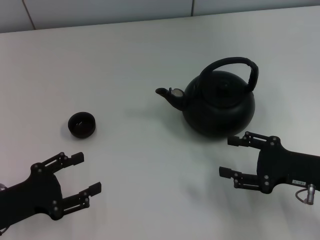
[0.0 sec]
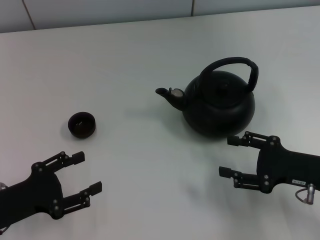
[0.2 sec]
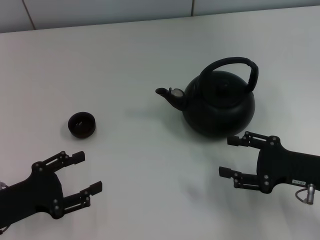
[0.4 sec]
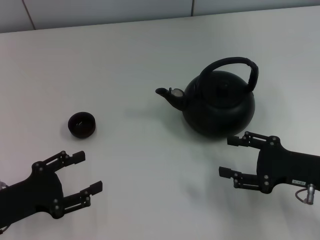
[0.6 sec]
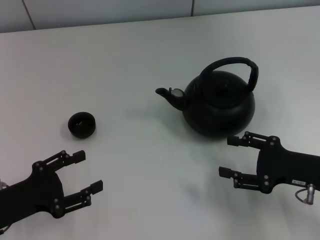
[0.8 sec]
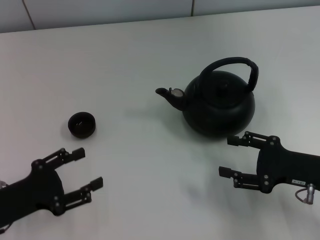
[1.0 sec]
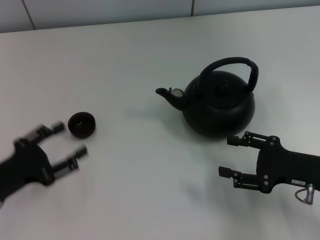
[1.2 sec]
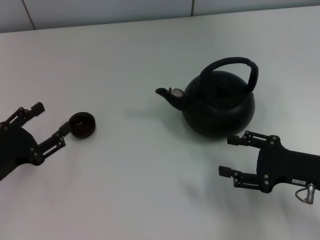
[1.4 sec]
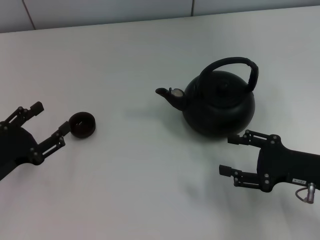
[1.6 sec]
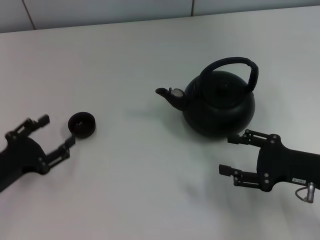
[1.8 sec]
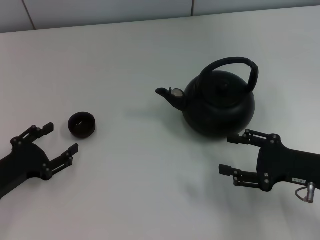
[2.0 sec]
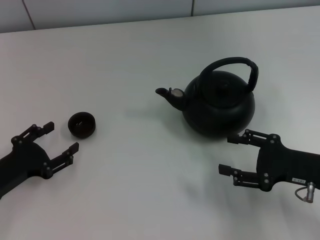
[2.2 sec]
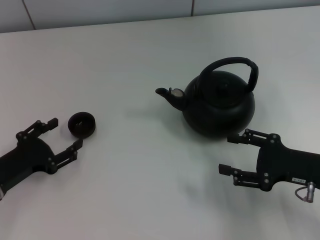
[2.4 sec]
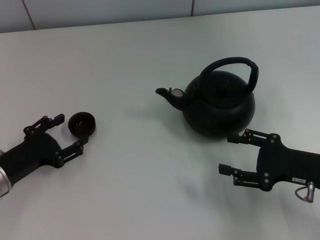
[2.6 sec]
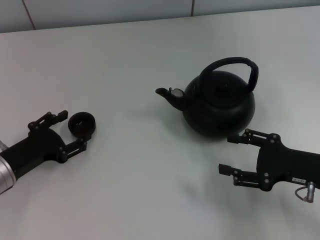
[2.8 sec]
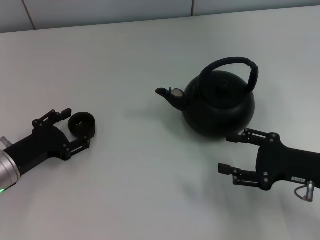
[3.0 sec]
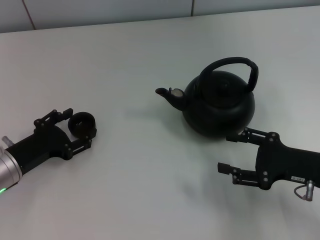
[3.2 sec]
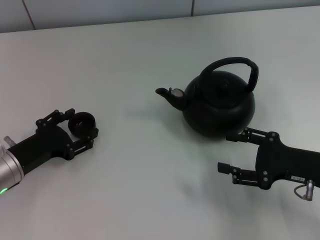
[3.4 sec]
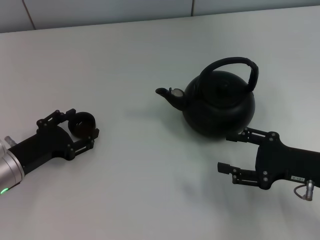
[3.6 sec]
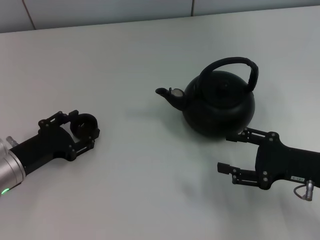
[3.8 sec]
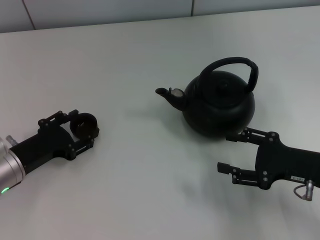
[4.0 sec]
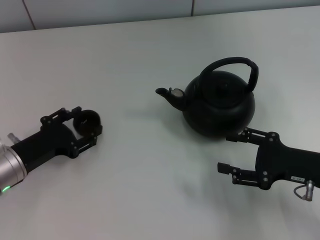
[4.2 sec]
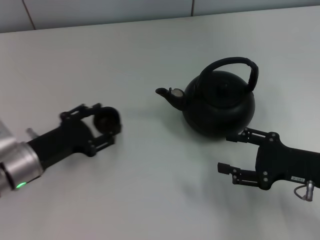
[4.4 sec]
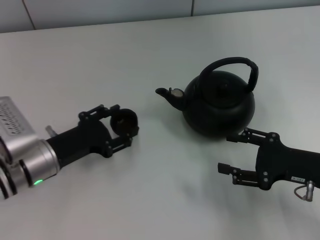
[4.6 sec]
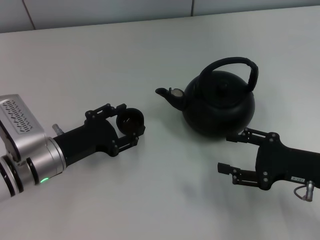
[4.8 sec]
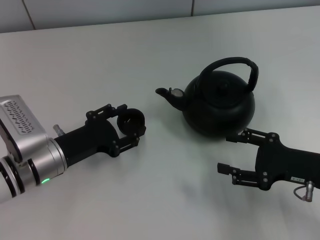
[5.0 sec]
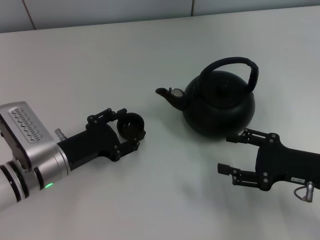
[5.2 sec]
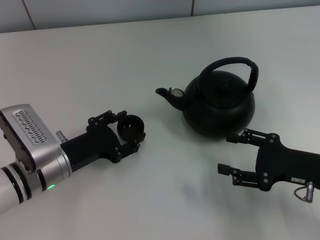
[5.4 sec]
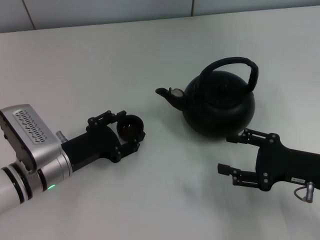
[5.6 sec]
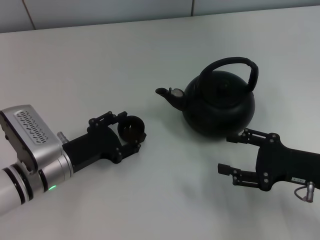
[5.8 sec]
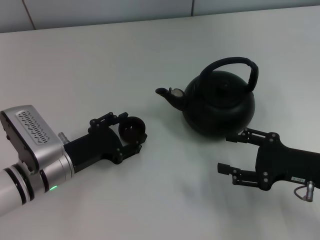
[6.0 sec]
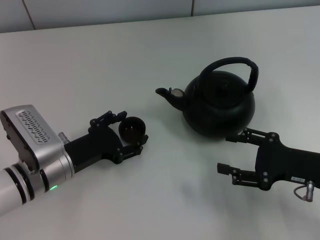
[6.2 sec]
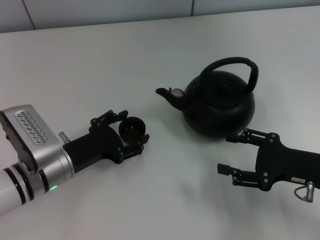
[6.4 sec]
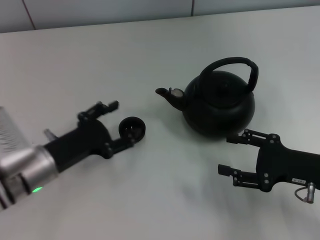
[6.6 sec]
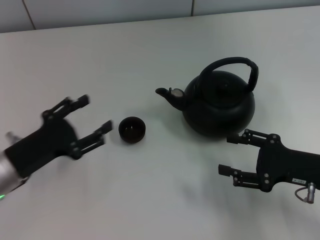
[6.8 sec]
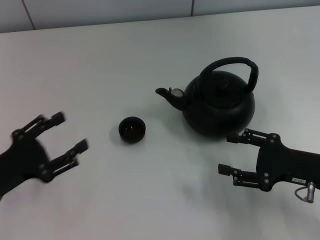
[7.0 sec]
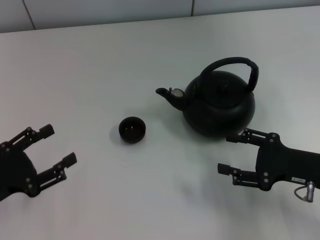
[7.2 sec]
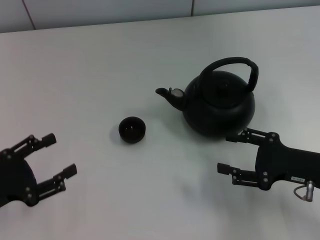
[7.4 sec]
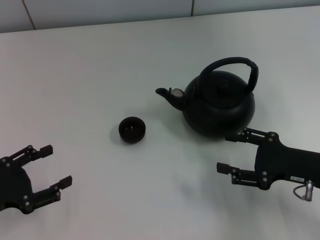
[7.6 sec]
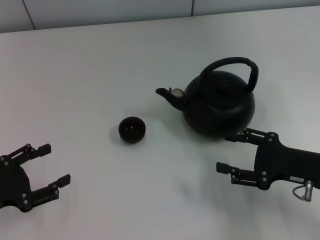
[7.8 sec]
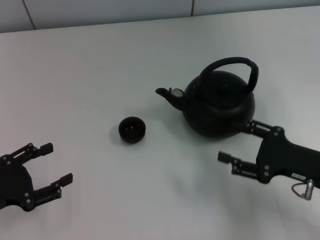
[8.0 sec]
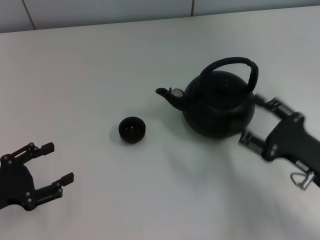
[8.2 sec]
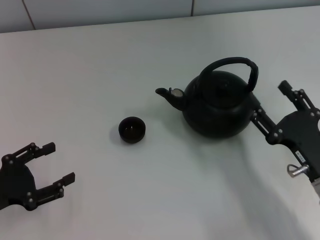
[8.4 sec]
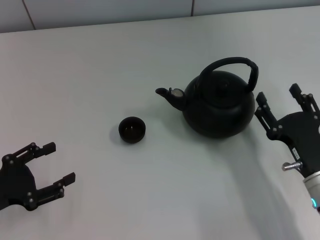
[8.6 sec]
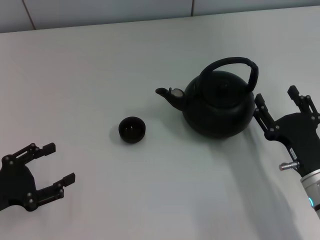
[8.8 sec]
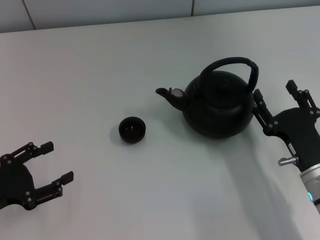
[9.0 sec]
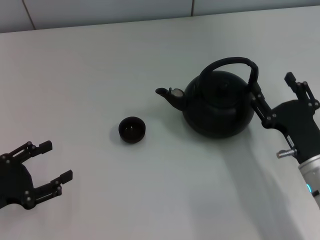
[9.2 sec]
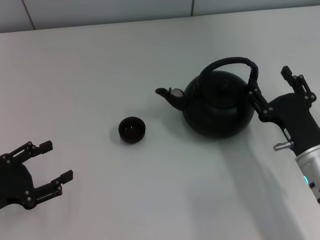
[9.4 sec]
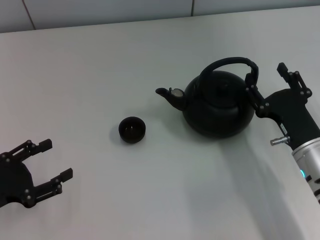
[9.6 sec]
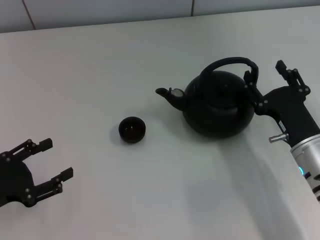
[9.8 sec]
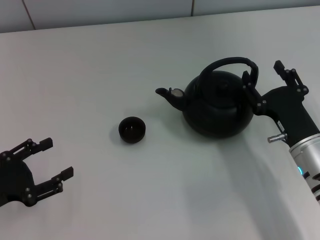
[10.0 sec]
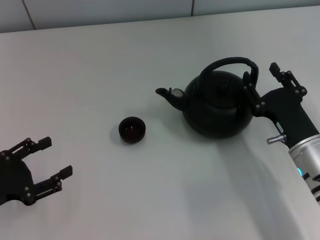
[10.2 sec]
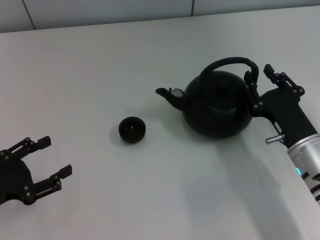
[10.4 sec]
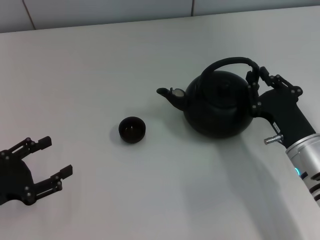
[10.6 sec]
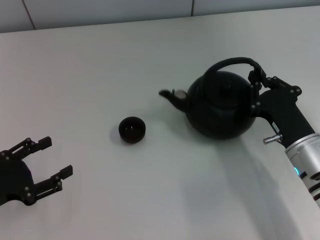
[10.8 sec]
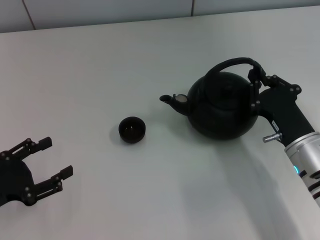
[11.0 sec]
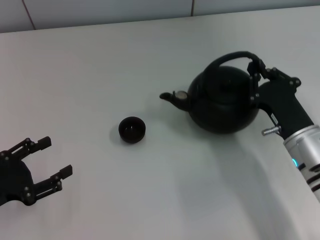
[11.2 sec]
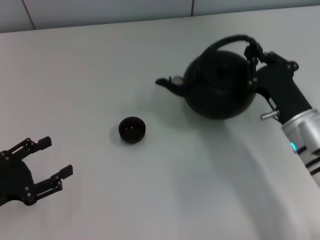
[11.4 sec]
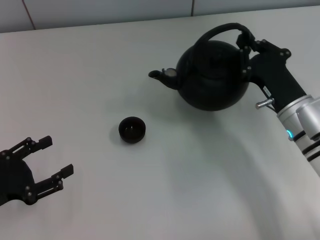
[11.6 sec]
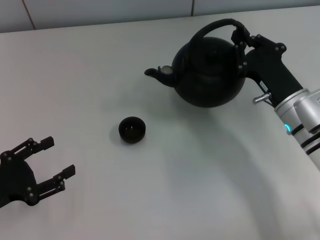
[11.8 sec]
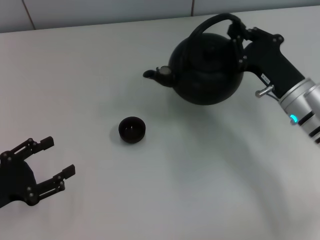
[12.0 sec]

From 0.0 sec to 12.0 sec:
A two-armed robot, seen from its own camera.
Task of the whole recording: Grasp the handle of the teapot with one hand and pour tea into the teacup.
Step, from 0.0 sec to 4.2 sec: Pick up the teacup with the left gripper.
Step, from 4.4 sec to 6.4 sec: Place the teacup in the center of view with the left gripper.
Step, from 6.6 sec to 11.4 sec: Pick up the teapot with the right gripper.
From 1.6 sec to 3.0 sec: The left gripper shifts by approximately 5 cm.
From 3.0 sec to 4.4 sec: The grippers move only a little.
From 4.4 sec to 6.0 sec: The left gripper changes place by some 5 cm.
From 6.0 sec to 7.6 sec: The left gripper heads to the left and backward, covering approximately 15 cm.
From 7.6 sec to 9.0 sec: The right gripper heads to the left, covering roughly 5 cm.
From 9.0 sec to 10.4 sec: There are only small adjustments of the grippers.
From 10.4 sec to 12.0 sec: The right gripper is displaced forward by approximately 10 cm, and closes.

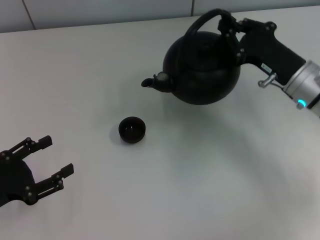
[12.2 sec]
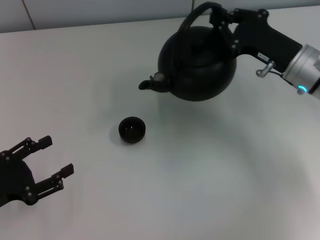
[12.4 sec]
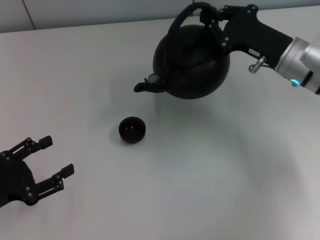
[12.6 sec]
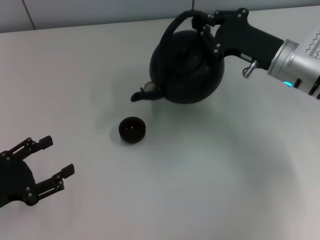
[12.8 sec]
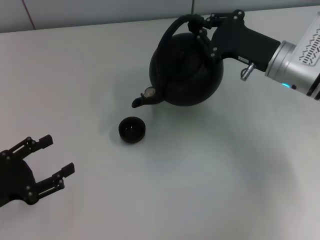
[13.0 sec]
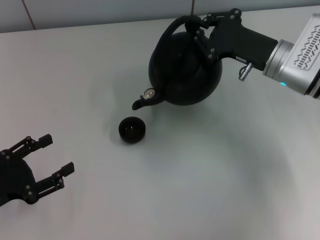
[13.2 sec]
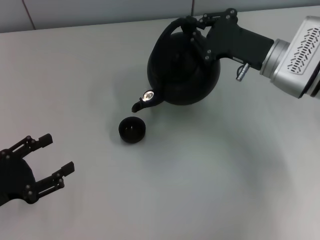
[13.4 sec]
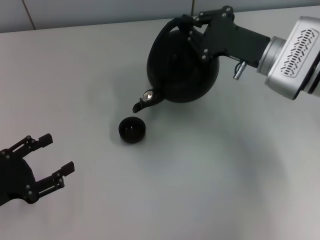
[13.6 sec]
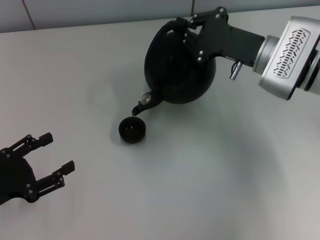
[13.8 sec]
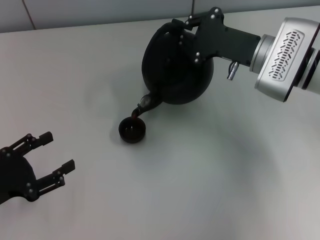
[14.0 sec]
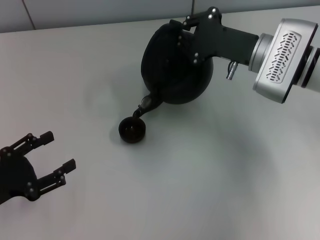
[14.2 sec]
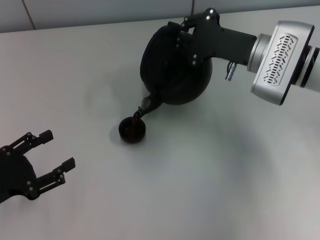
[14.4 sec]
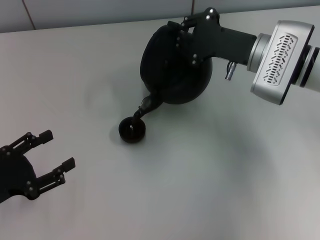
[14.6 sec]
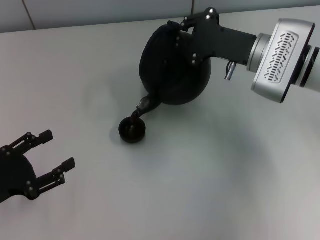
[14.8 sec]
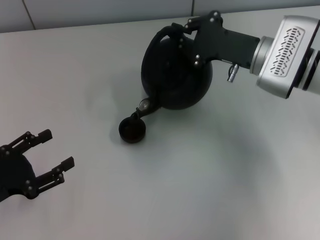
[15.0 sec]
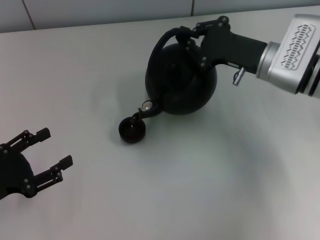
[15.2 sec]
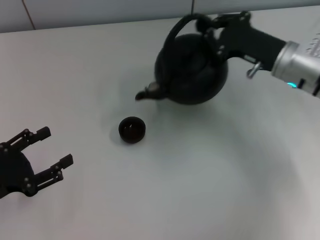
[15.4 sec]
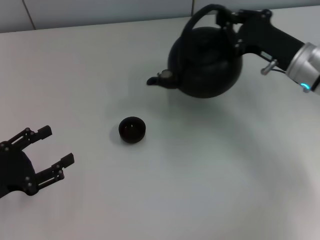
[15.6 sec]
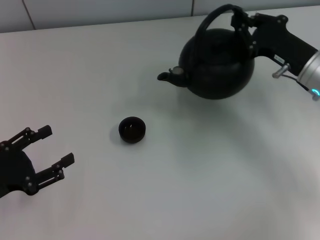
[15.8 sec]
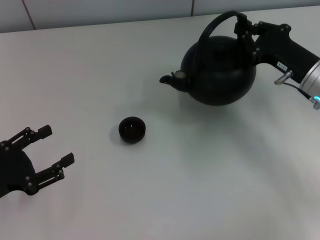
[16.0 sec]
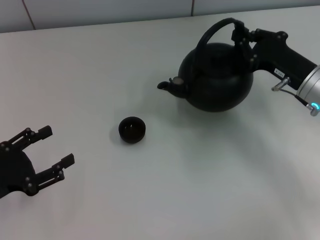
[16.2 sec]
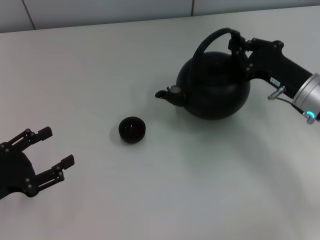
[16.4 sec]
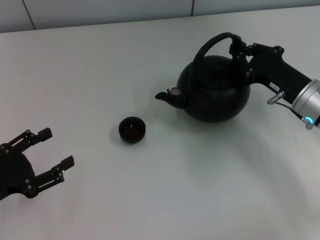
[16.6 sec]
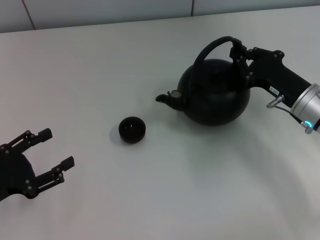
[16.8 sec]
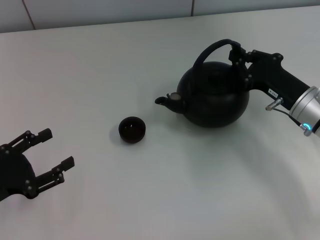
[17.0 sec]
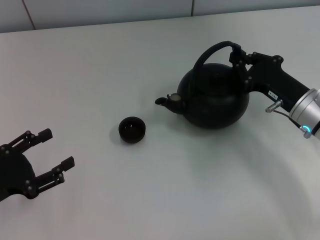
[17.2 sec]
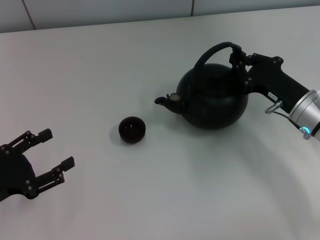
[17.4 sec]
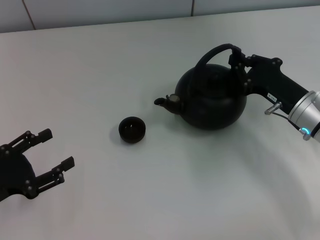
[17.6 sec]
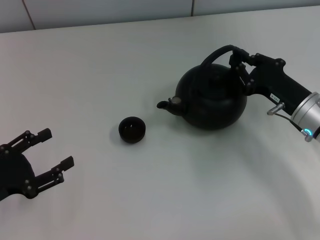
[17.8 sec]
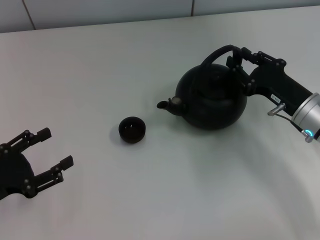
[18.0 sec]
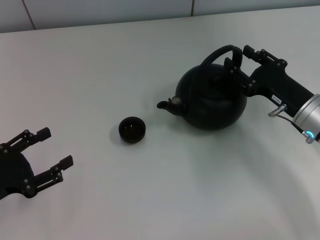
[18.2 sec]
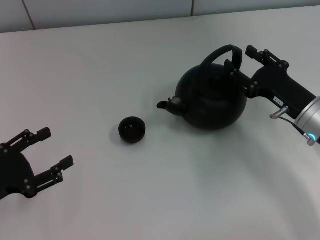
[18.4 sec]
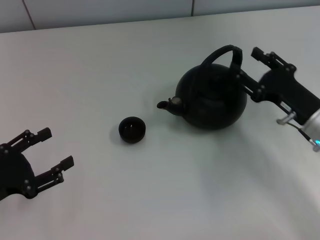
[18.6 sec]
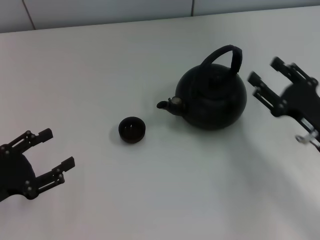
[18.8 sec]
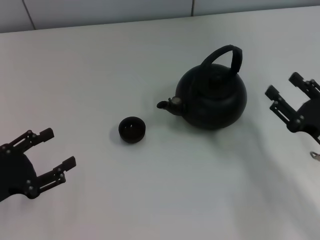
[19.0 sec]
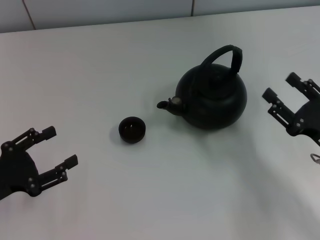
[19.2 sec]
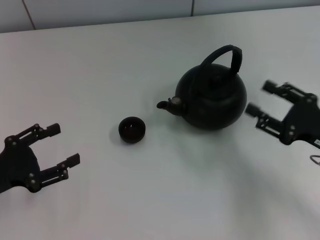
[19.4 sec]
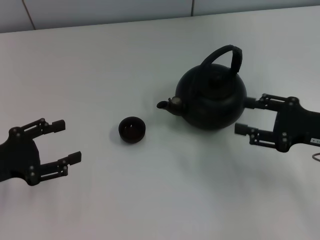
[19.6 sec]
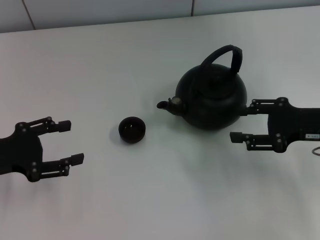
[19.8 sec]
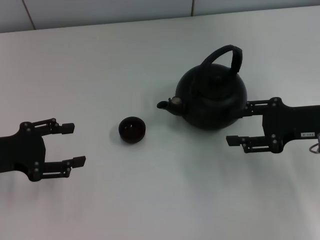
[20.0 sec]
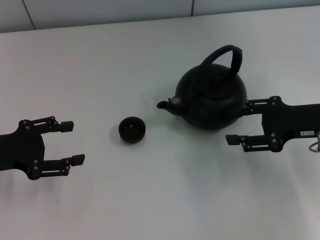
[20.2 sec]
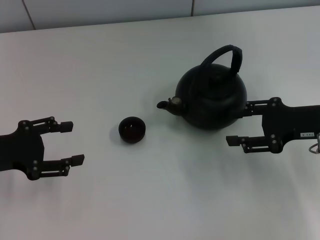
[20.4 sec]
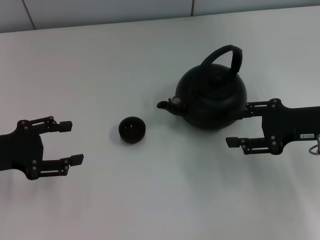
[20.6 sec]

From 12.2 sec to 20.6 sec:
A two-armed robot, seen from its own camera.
Task of the whole recording: Grasp the handle of the teapot with one hand and pour tea into the teacup.
Step, from 15.4 sec to 18.4 sec: Put down the teapot with the right gripper.
From 12.2 sec to 13.6 sec: The right gripper shifts by approximately 5 cm.
From 13.6 sec to 15.0 sec: There are only small adjustments of the grippers.
From 15.0 sec to 16.4 sec: The right gripper is displaced to the right and backward by approximately 10 cm.
From 16.4 sec to 17.8 sec: The grippers make only small movements.
From 17.8 sec to 19.2 sec: The right gripper heads backward, covering approximately 10 cm, and opens its fingers.
From 19.2 sec to 20.6 sec: The right gripper is displaced forward and upward by about 10 cm. The left gripper travels forward by some 5 cm.
